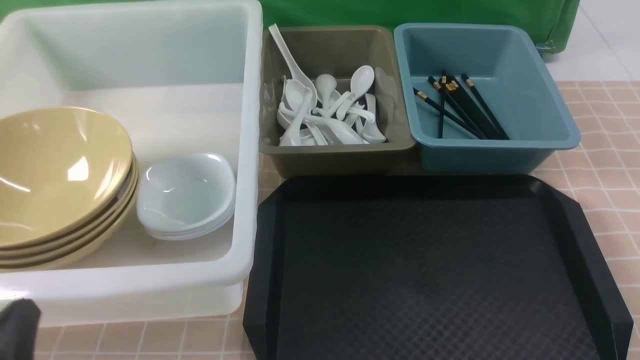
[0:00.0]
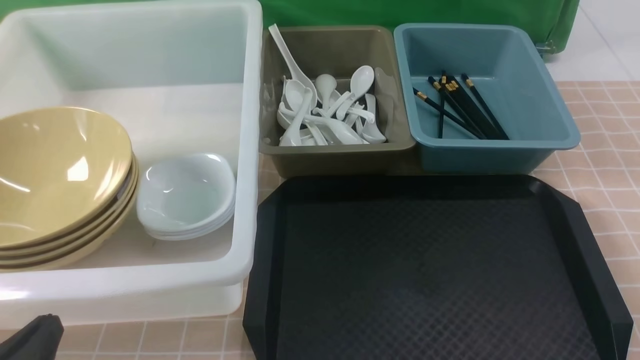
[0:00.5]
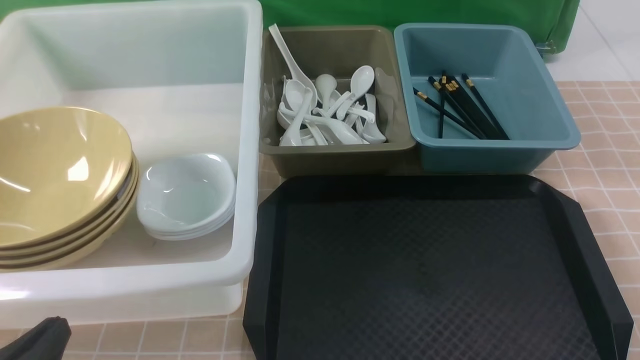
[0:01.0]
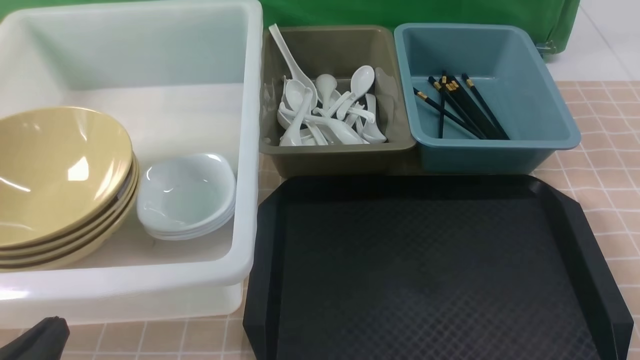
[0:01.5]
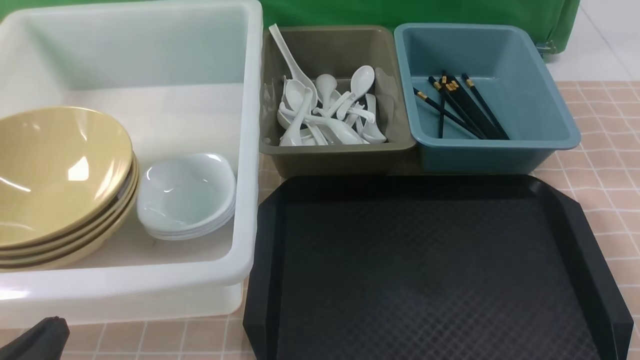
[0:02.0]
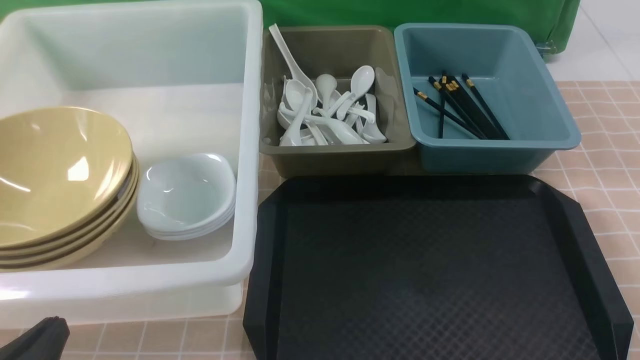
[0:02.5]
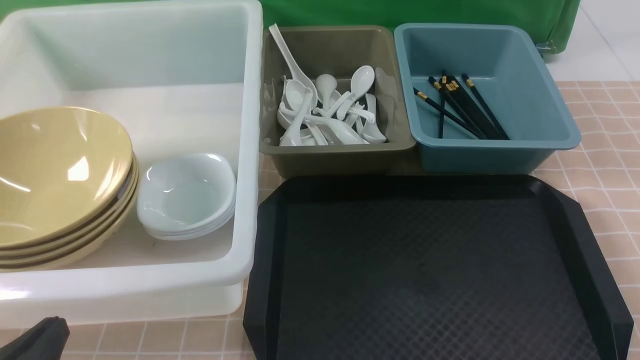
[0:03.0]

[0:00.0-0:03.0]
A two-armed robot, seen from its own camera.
Task of the whole recording: on brown table put chopsticks spoon bowls plates into blue grey white boxes.
0:00.0 to 0:01.5: The grippers make only small movements.
0:01.5 to 0:03.0: Neither gripper changes place.

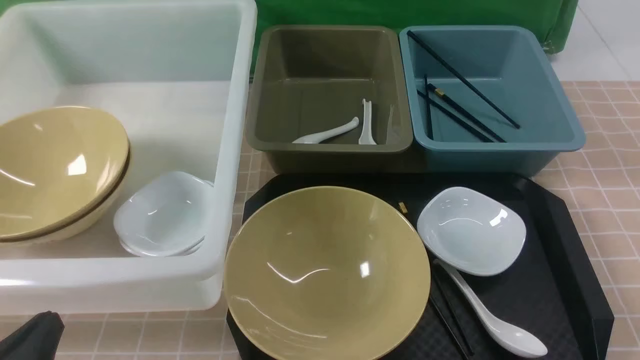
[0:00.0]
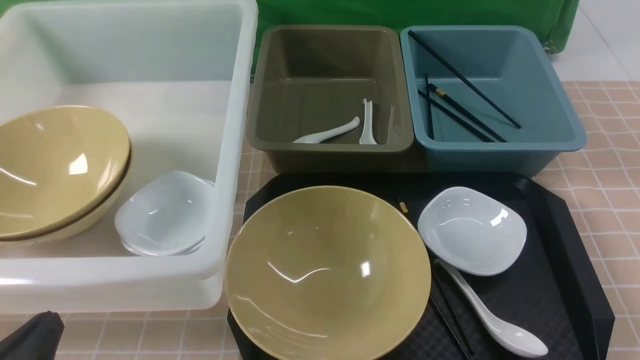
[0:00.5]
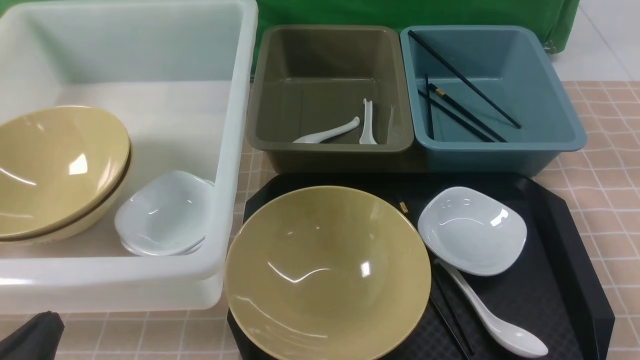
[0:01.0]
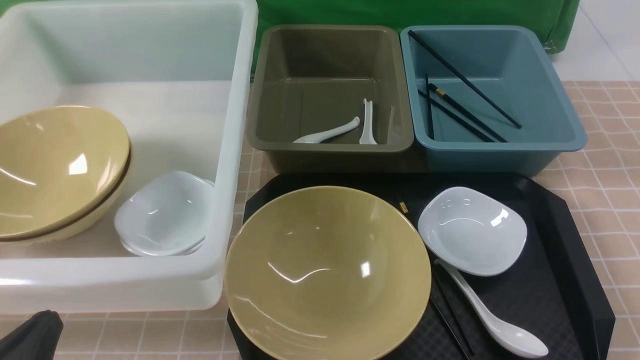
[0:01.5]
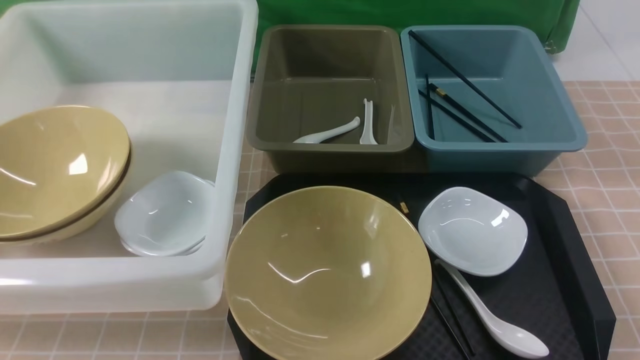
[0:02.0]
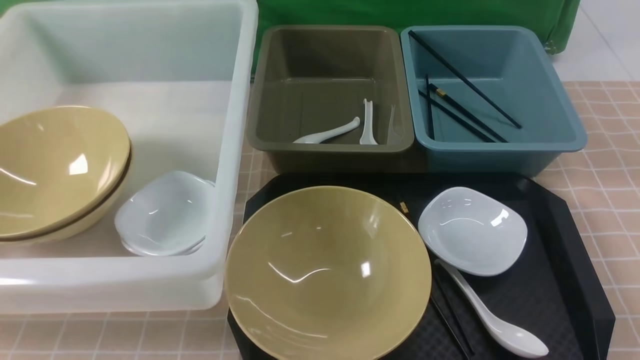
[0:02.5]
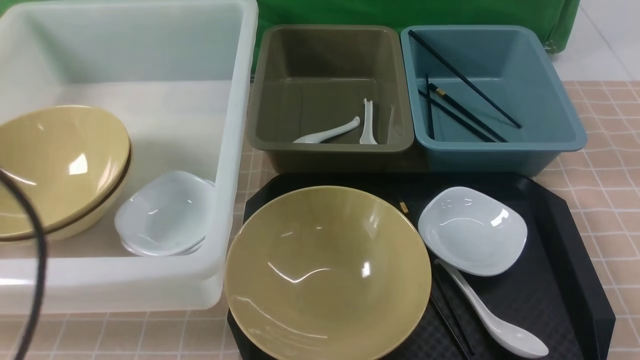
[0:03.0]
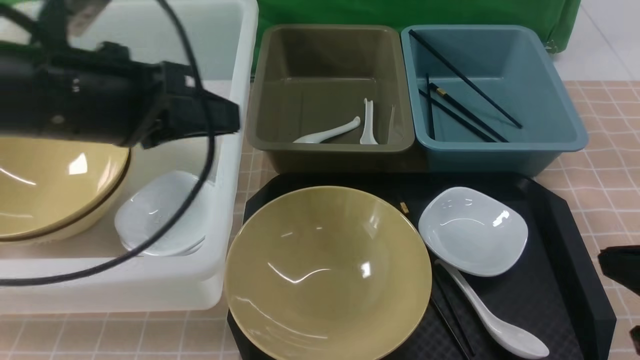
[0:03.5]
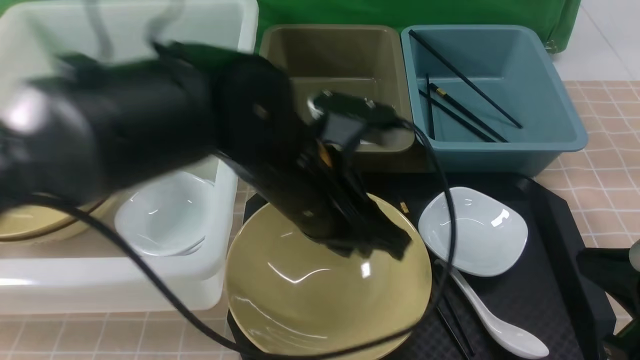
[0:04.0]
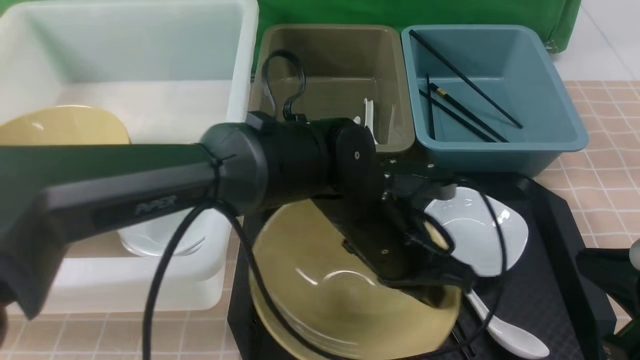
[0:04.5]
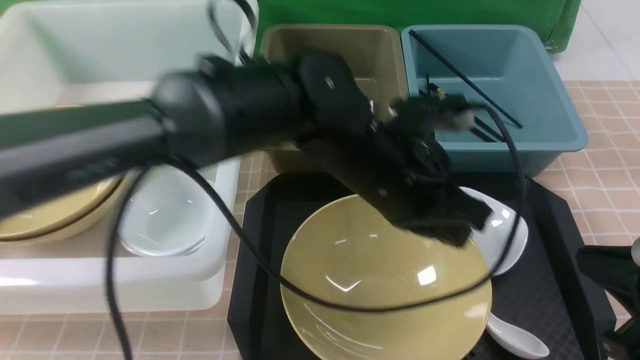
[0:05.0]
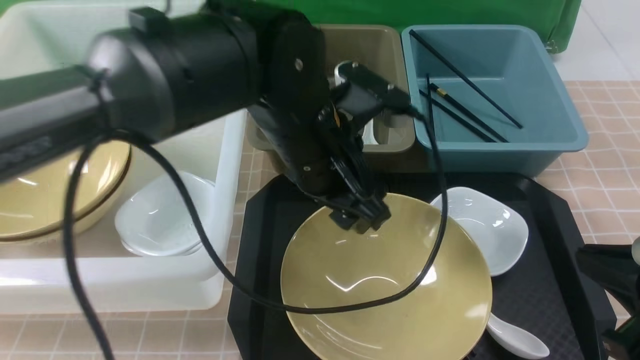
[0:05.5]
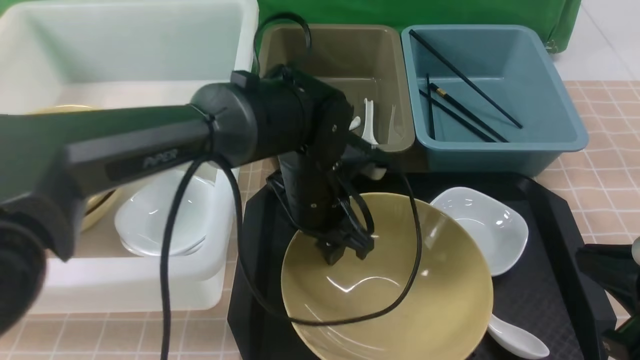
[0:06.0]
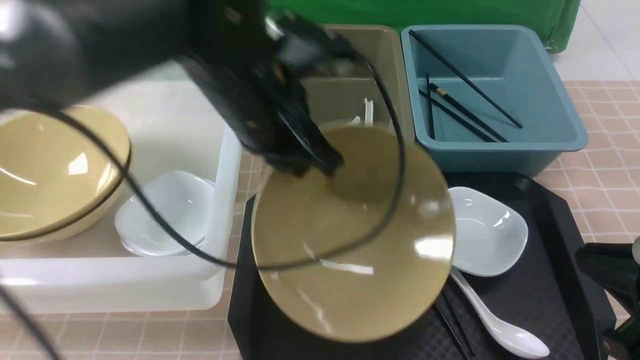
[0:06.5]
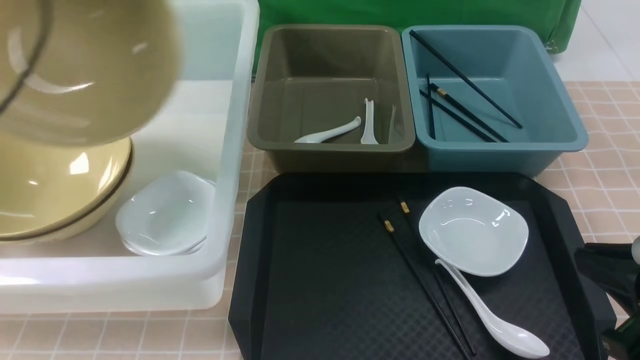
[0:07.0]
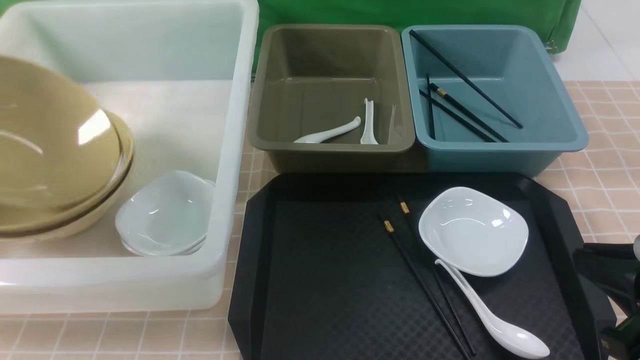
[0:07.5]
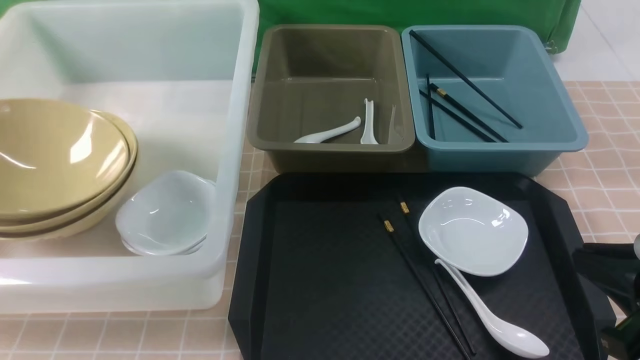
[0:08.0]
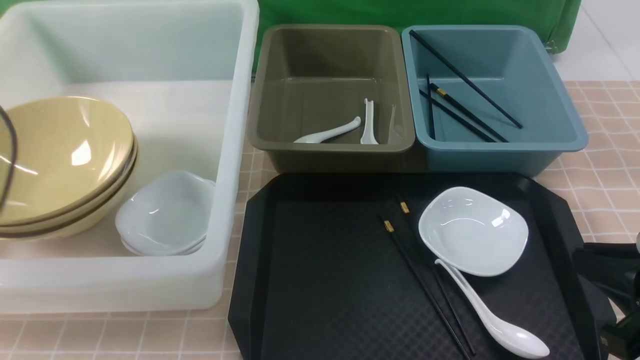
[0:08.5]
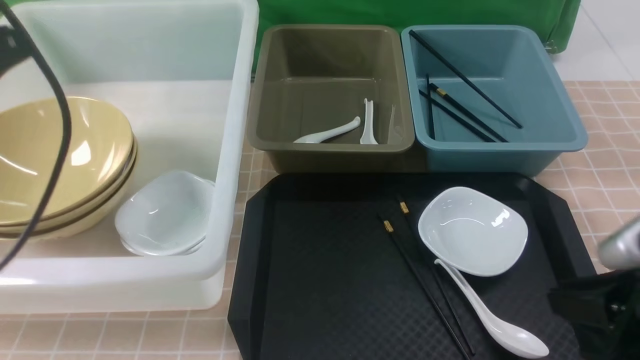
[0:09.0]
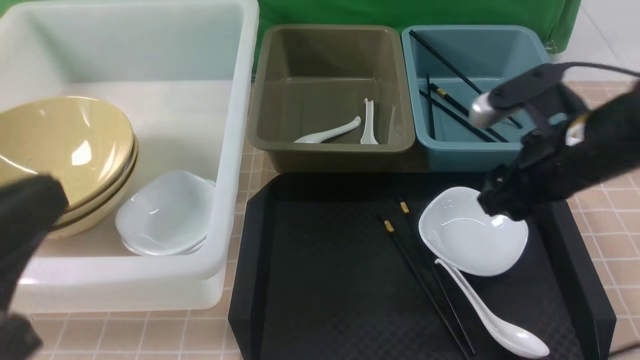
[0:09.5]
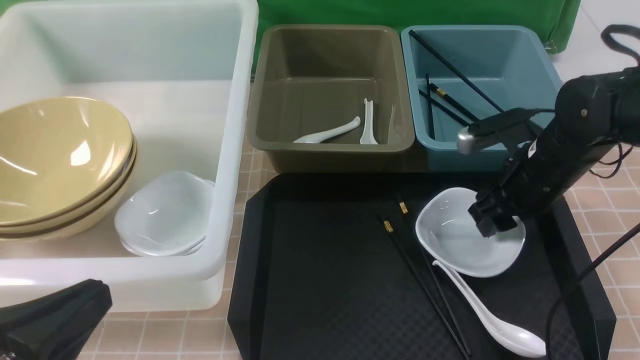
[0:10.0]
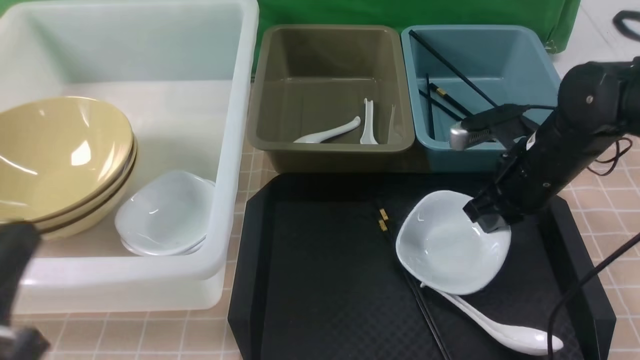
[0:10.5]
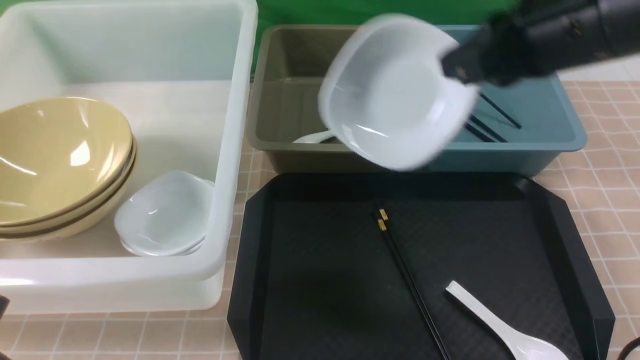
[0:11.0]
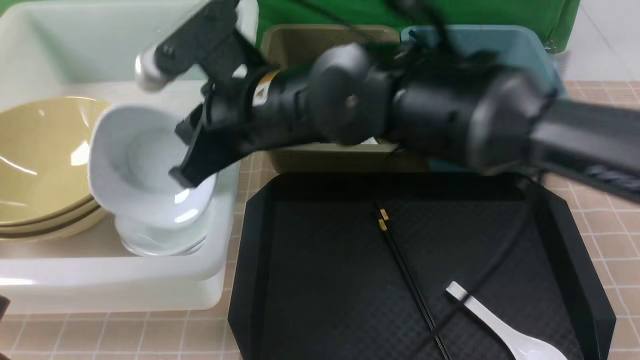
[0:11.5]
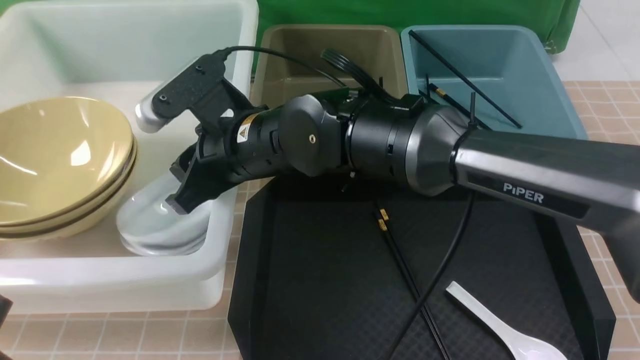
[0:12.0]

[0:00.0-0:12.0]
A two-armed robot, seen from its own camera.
Task of the whole recording: on brown table put chopsticks spoon bowls plates into blue grey white boxes.
Step, 0:00.0 to 0:06.5: use the left arm to grab the yellow noodle bowl on the left.
Step, 0:07.0 to 0:08.0: use the left arm to put the noodle bowl into the large storage box on the left.
Step, 0:08.5 to 0:10.5: use the right arm to grab the plate.
0:00.0 to 0:02.0: Both grippers travel together upward, roughly 5 cm.
0:02.0 to 0:04.0: The left gripper shifts roughly 30 cm to the right and forward; the right gripper is displaced forward by about 10 cm, and closes up.
0:04.0 to 0:06.0: The left gripper is displaced forward and downward by roughly 10 cm, and opens up.
0:06.0 to 0:08.0: The left gripper moves to the left and upward, roughly 40 cm, and closes and opens again.
0:08.0 to 0:10.0: The left gripper goes about 30 cm backward, to the right and downward, and closes its fingers, while the right gripper heads forward, covering about 20 cm, and opens up.
0:10.0 to 0:12.0: The right gripper heads to the left, covering roughly 30 cm, and closes, then opens again.

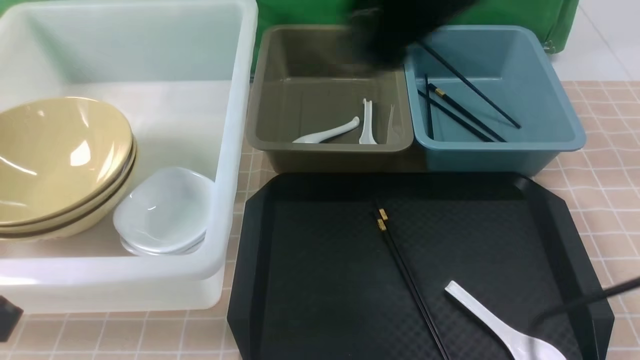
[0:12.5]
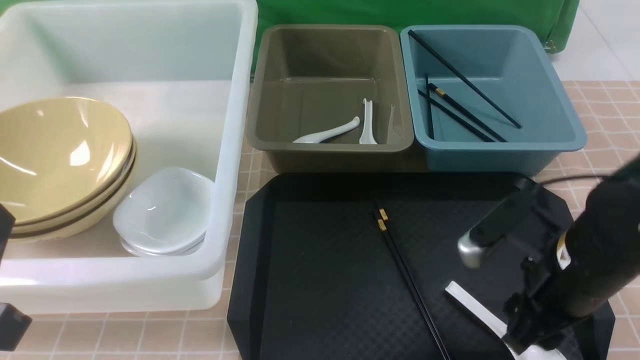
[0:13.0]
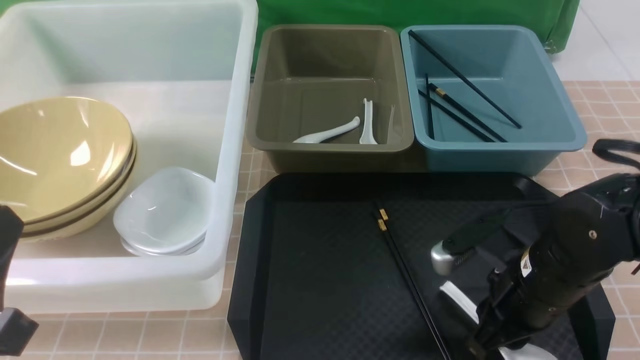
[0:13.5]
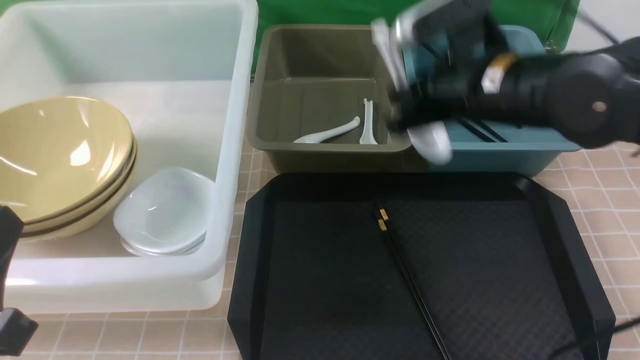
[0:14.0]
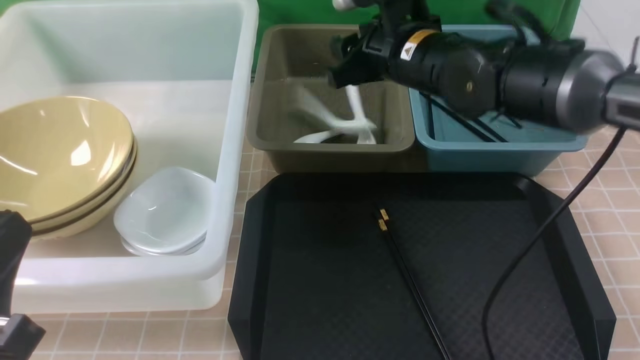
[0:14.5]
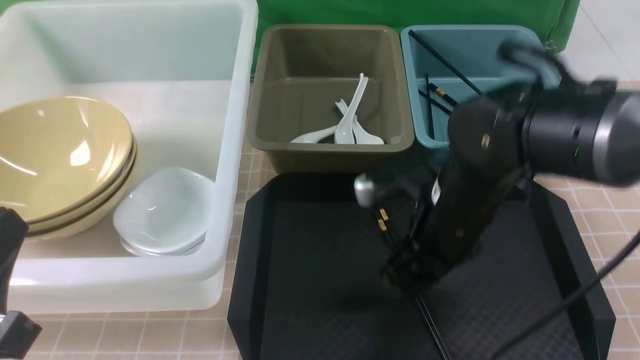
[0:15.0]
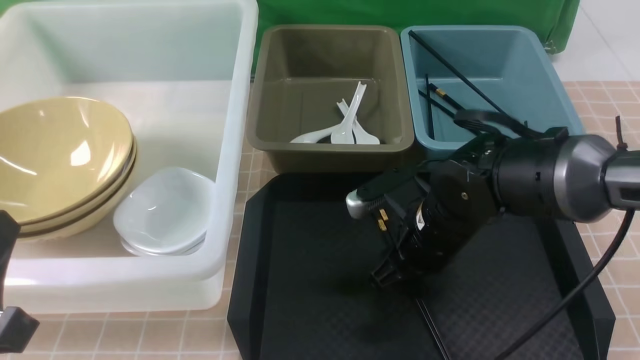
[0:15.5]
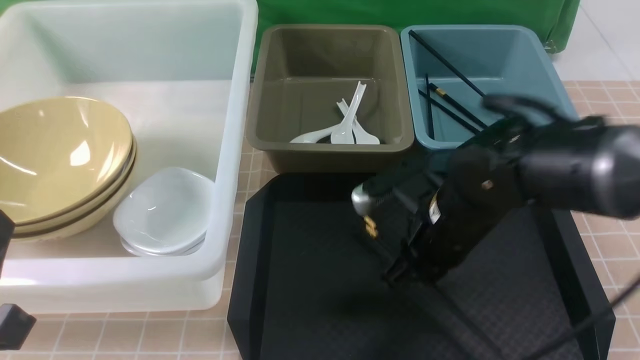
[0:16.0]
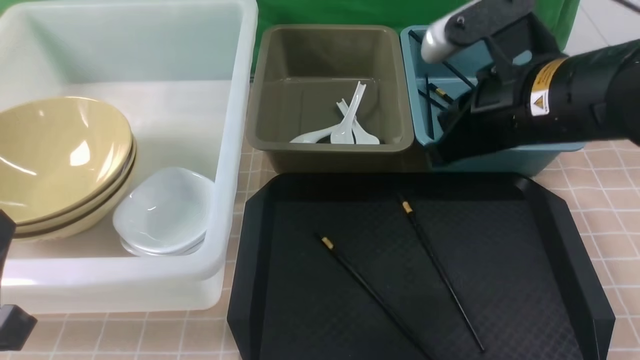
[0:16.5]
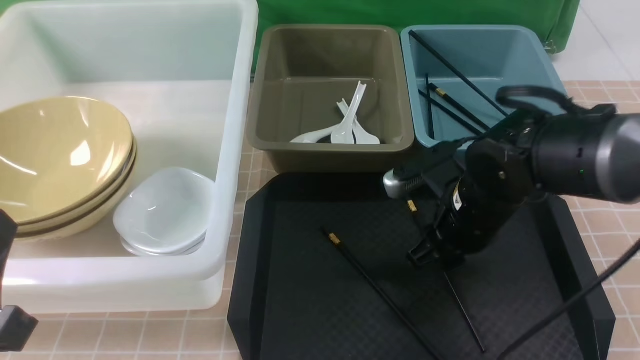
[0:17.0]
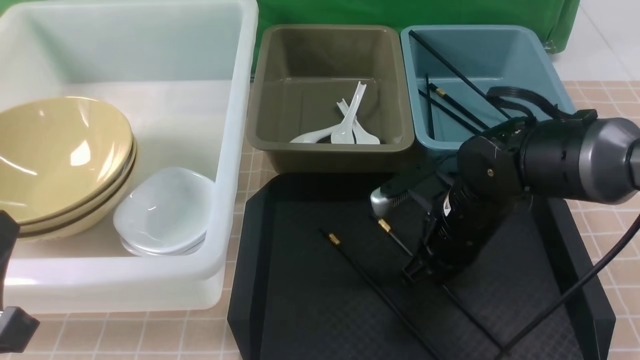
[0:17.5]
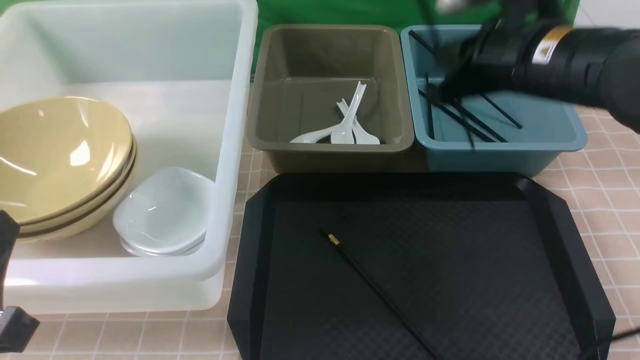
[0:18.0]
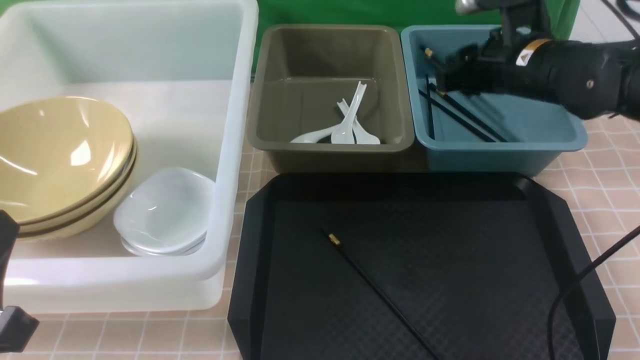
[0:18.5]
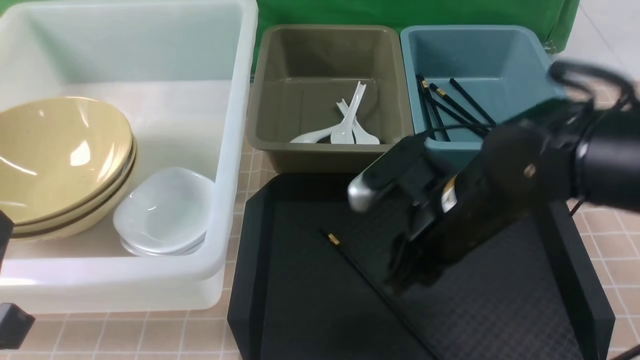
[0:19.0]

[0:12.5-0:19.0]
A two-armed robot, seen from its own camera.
Task of the whole recording: on brown table put chopsticks spoon bowls plates into blue grey white boxes.
Step, 0:13.0 to 0:13.5: use the right arm to grab the soup spoon in the middle.
Step, 0:14.0 to 0:14.5: use the right arm to put the soup spoon into the small storage box in the middle.
Step, 0:15.0 to 0:17.5: use the right arm to grab a chopstick.
Step, 0:18.0 to 0:18.5: use the right arm to put a chopstick into the small storage box on the right.
0:12.5 to 0:14.5: The right gripper travels forward and downward by some 15 cm, and closes and opens again.
0:14.5 to 0:17.0: The right gripper goes up and down, approximately 15 cm each way, reversing 2 times, and closes and opens again.
0:17.0 to 0:19.0: The right gripper reaches some 10 cm upward, then returns, and closes and opens again.
